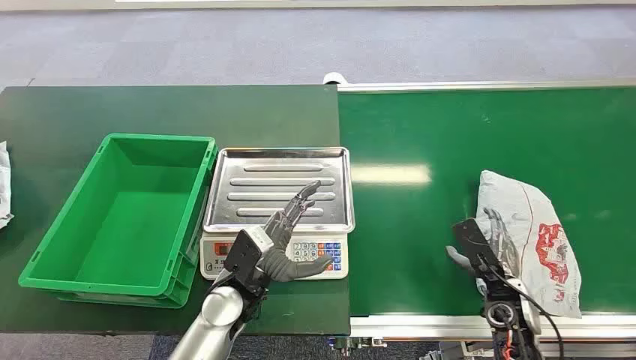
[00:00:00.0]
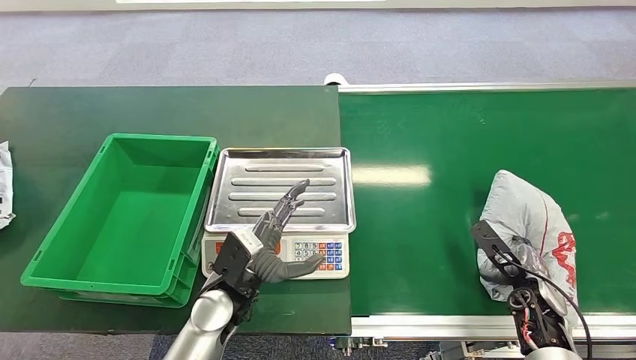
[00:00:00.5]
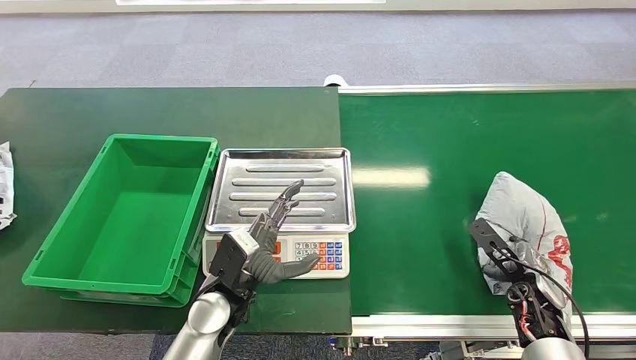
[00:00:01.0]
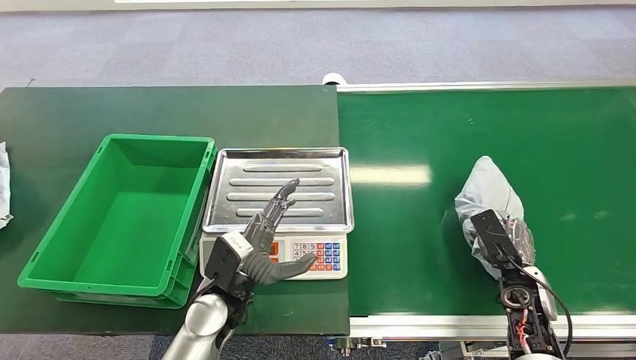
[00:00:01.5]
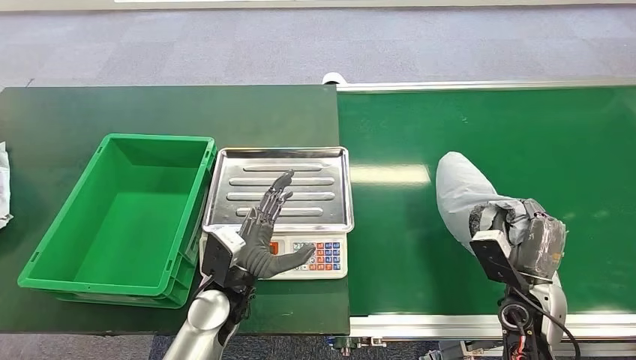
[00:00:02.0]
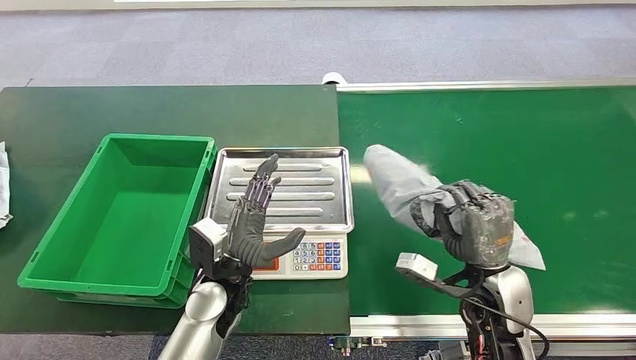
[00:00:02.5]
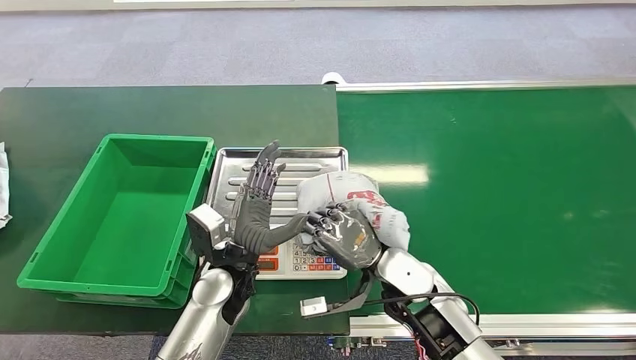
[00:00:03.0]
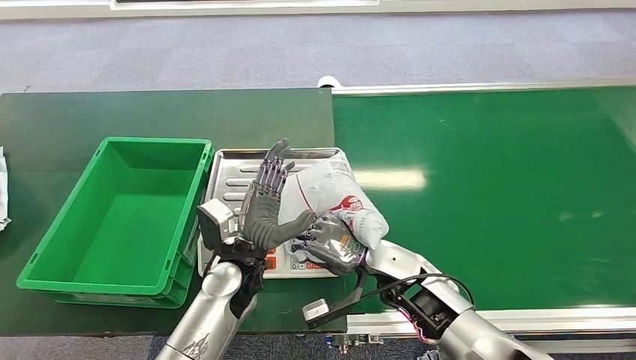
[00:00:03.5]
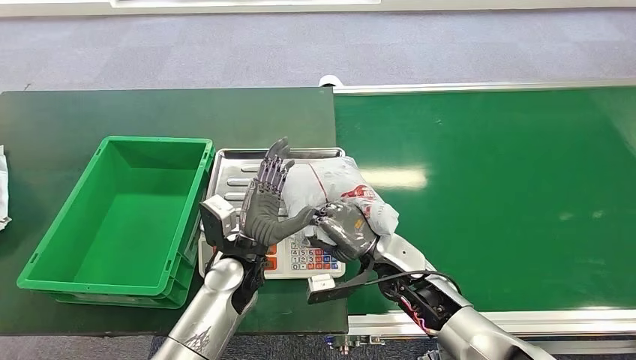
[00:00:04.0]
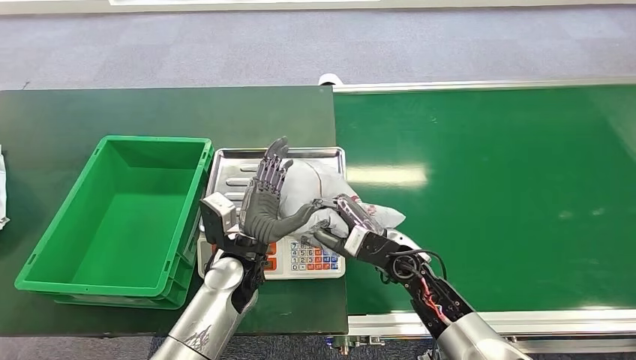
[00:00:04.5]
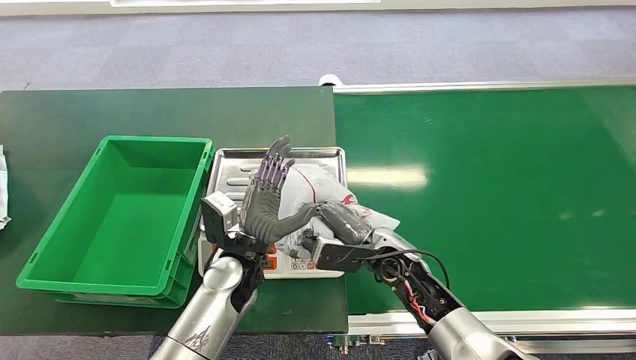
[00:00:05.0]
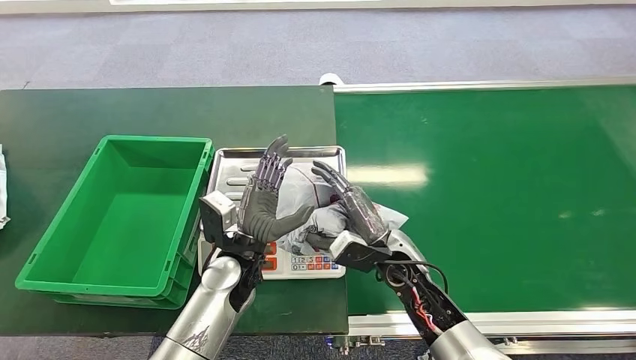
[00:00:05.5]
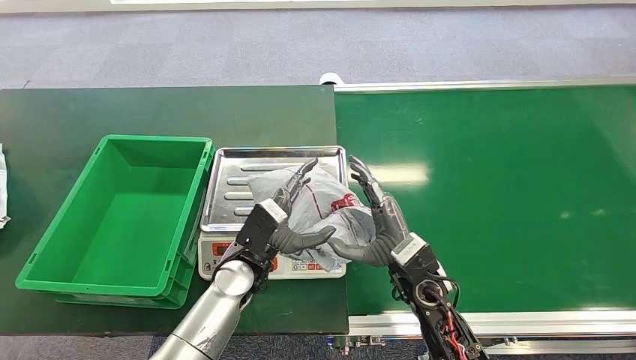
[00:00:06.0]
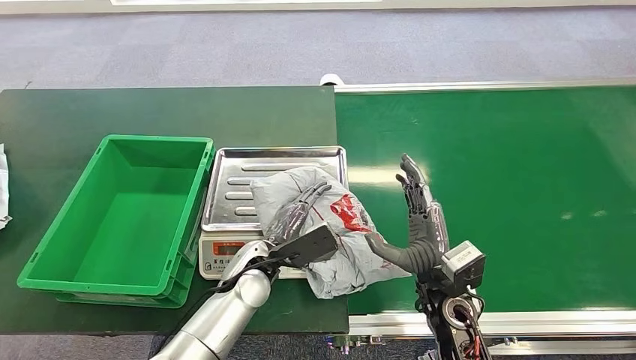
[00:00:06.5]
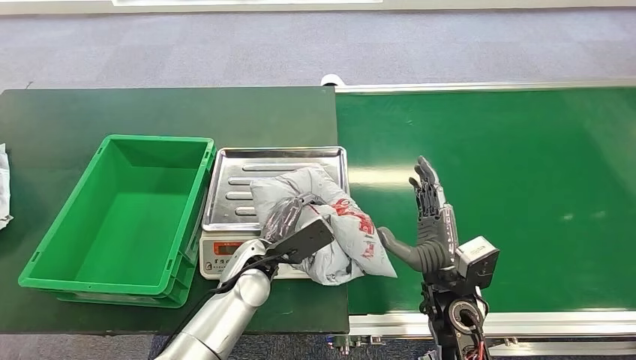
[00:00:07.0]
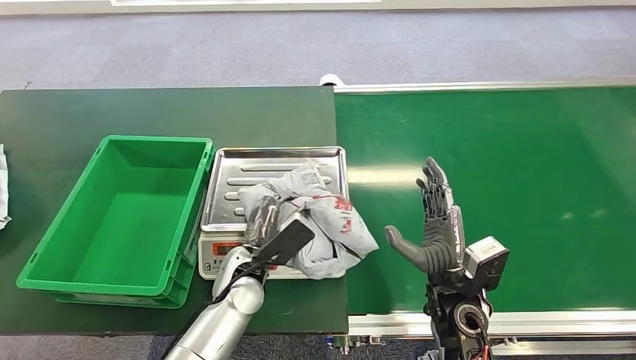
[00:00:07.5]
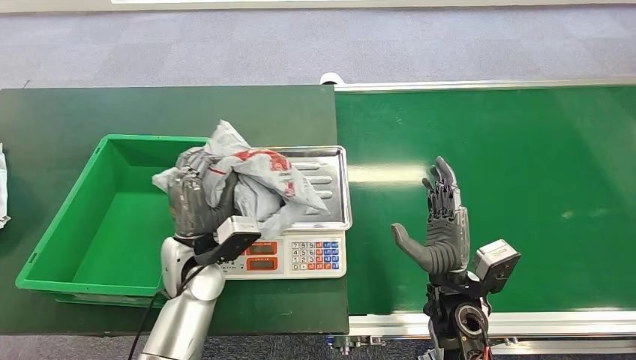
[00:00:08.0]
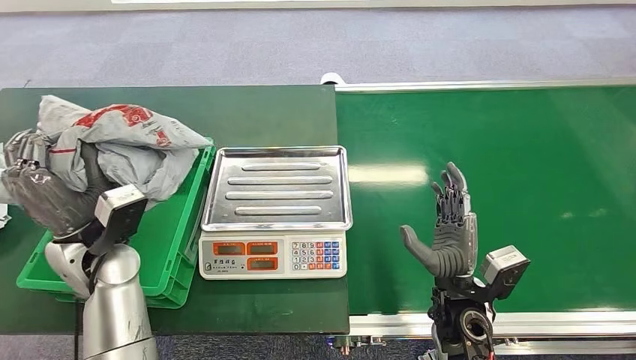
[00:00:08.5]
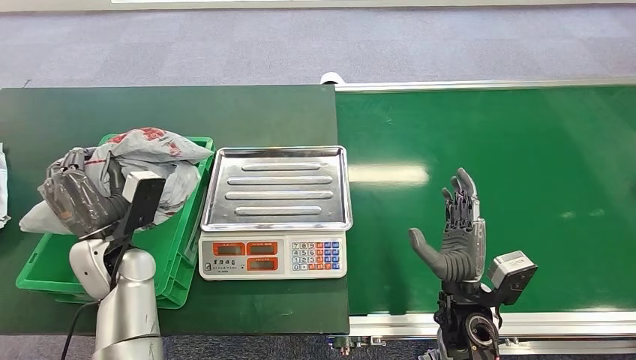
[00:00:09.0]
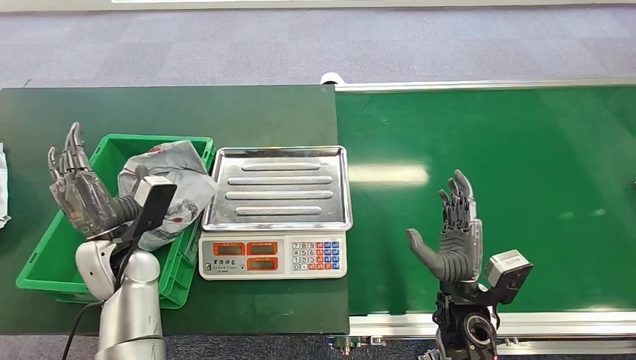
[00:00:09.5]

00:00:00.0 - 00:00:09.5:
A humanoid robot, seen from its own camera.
Step, 00:00:00.0 - 00:00:01.5: Pick up the package from the conveyor belt.
Step, 00:00:03.0 - 00:00:05.5: Place the package onto the inbound machine.
Step, 00:00:06.5 - 00:00:08.0: Pick up the package from the inbound machine.
Step, 00:00:09.0 - 00:00:09.5: Place the package into the parcel locker.
00:00:05.5 - 00:00:07.5: The right hand goes roughly 10 cm backward and to the right.
